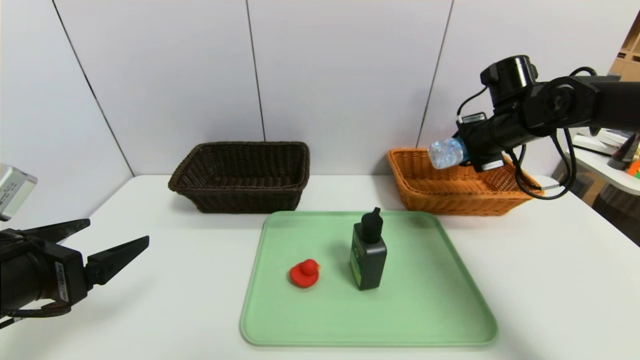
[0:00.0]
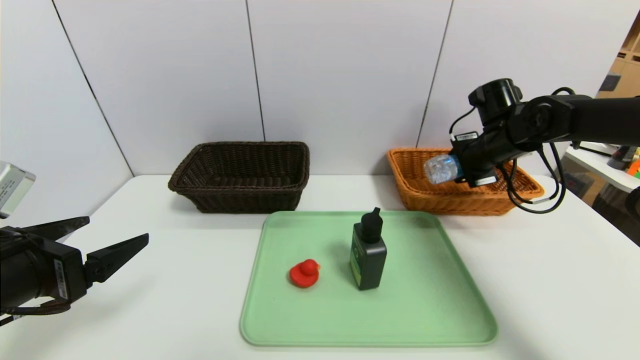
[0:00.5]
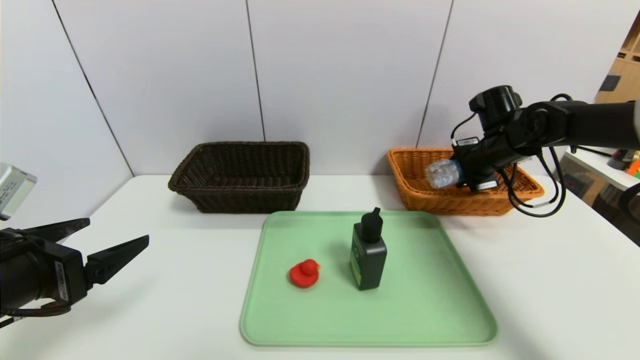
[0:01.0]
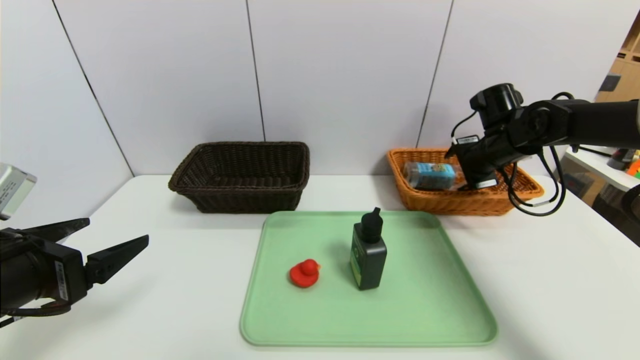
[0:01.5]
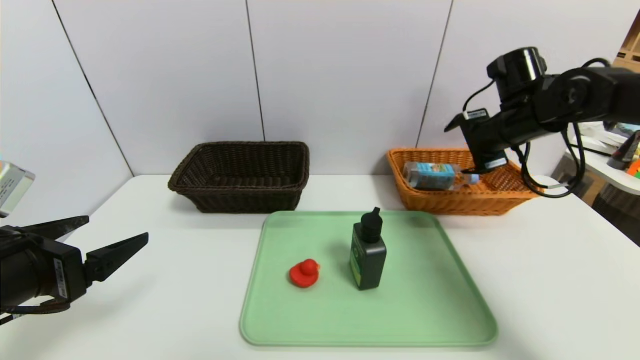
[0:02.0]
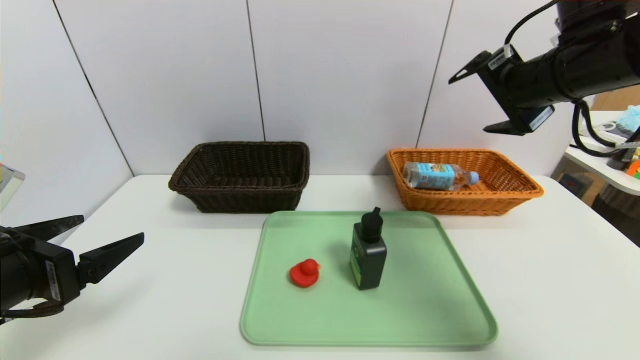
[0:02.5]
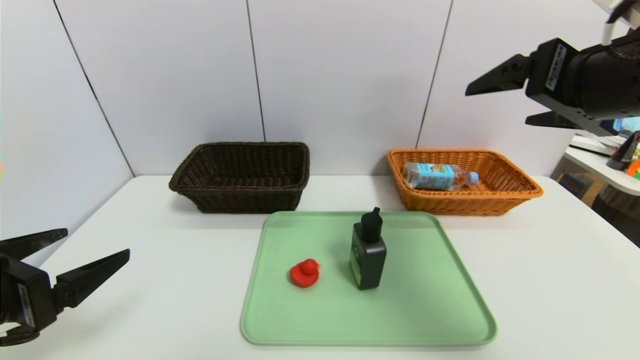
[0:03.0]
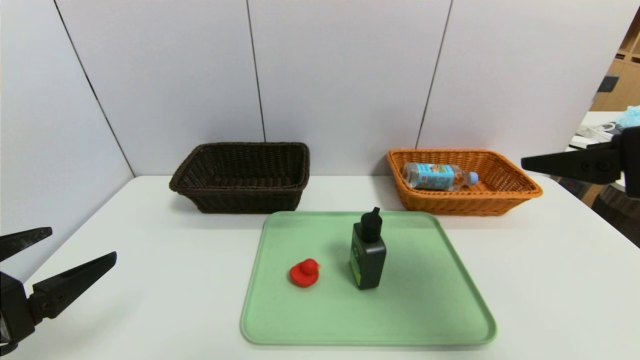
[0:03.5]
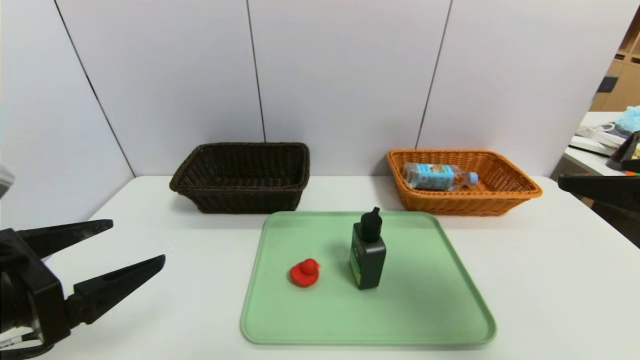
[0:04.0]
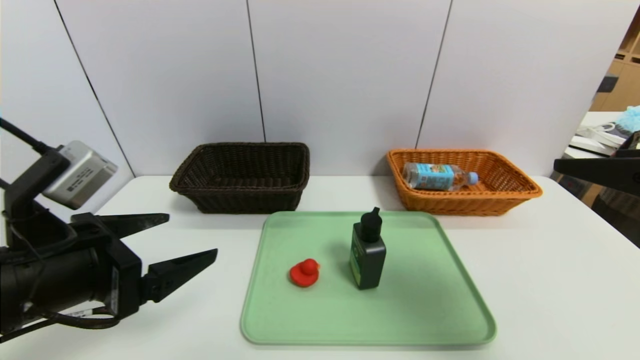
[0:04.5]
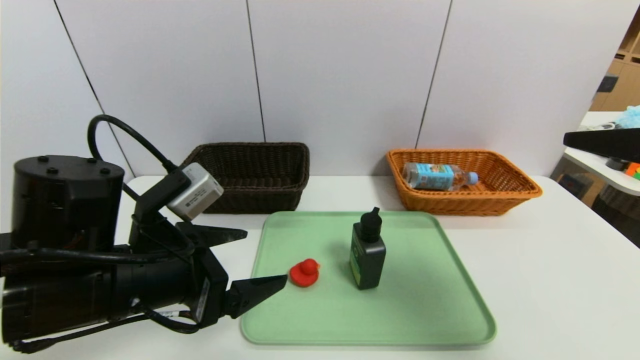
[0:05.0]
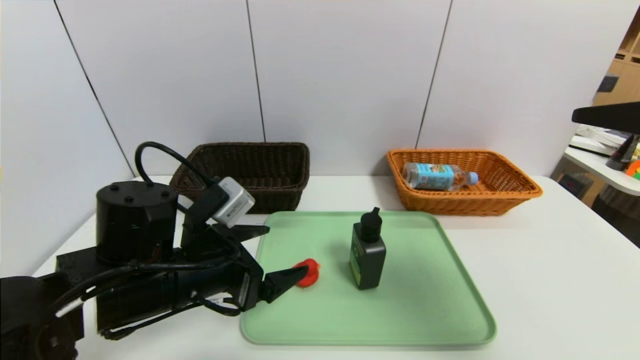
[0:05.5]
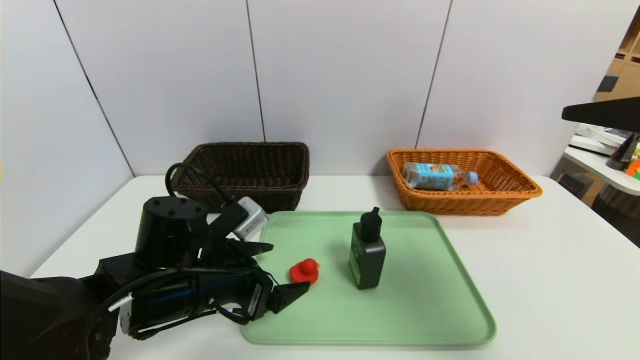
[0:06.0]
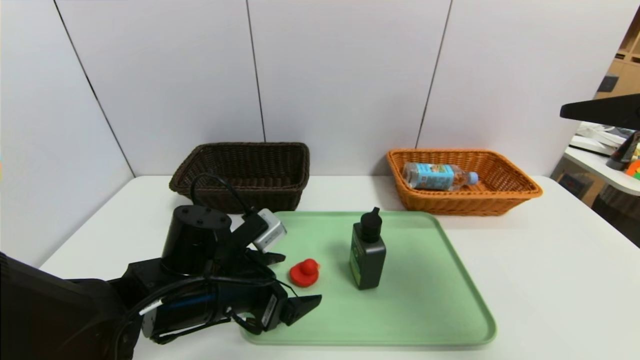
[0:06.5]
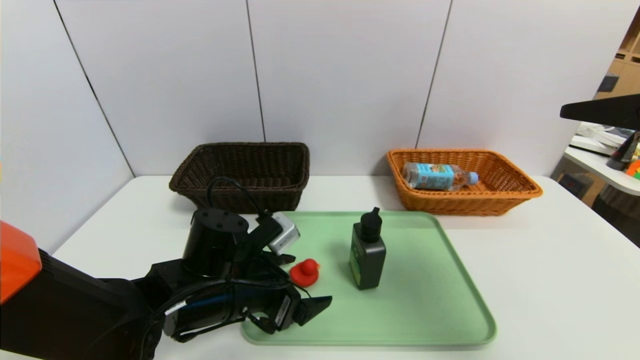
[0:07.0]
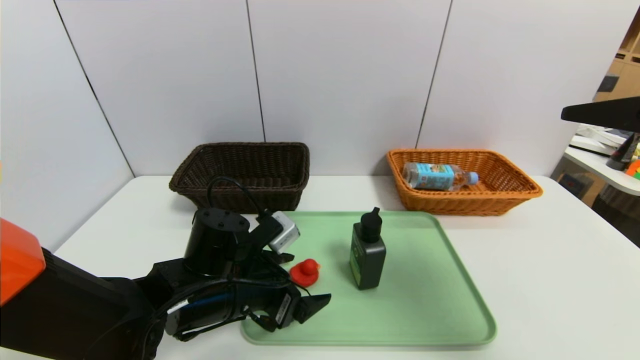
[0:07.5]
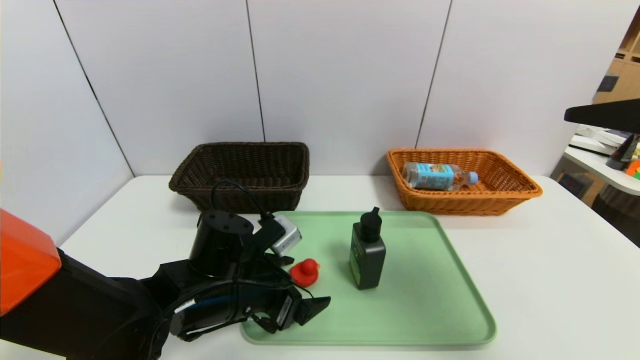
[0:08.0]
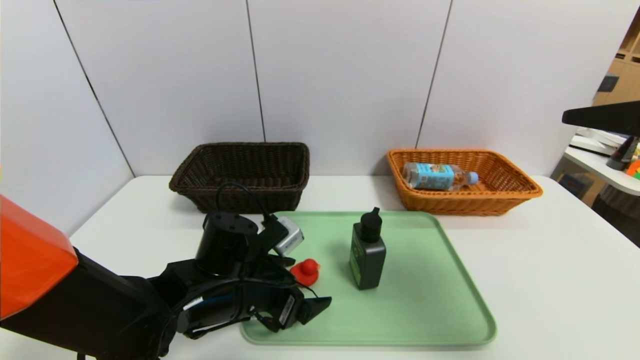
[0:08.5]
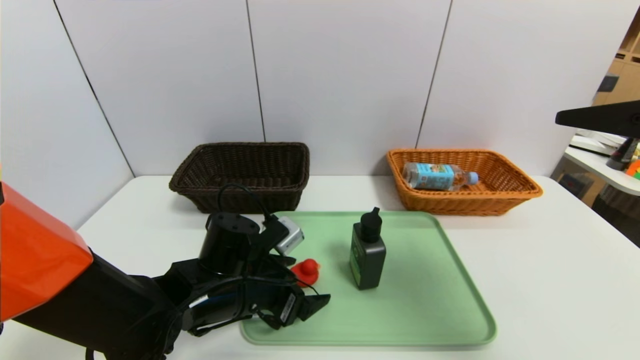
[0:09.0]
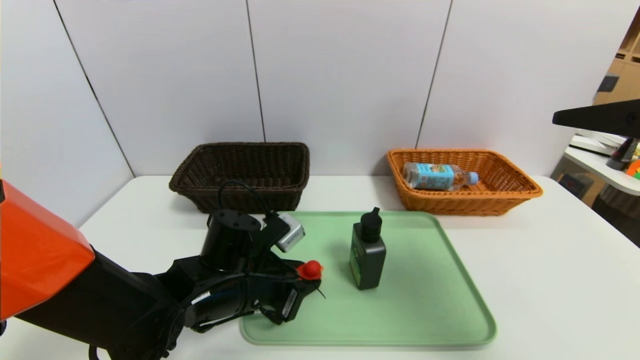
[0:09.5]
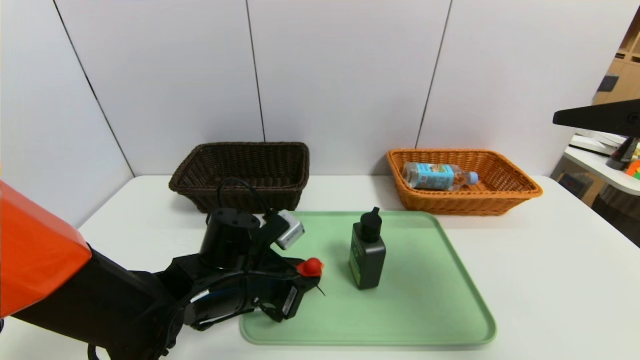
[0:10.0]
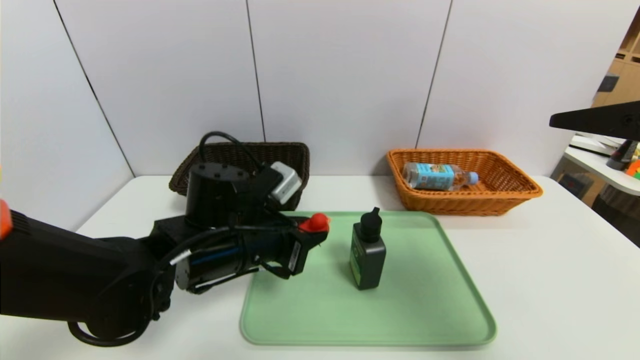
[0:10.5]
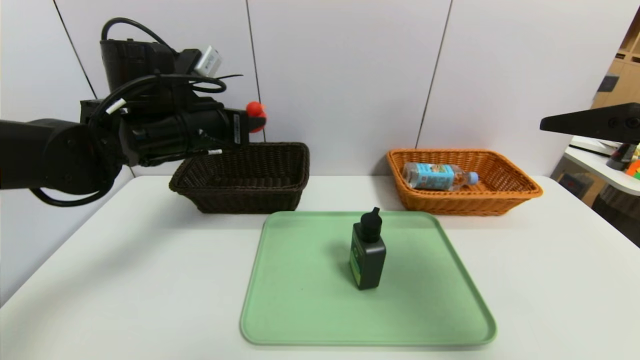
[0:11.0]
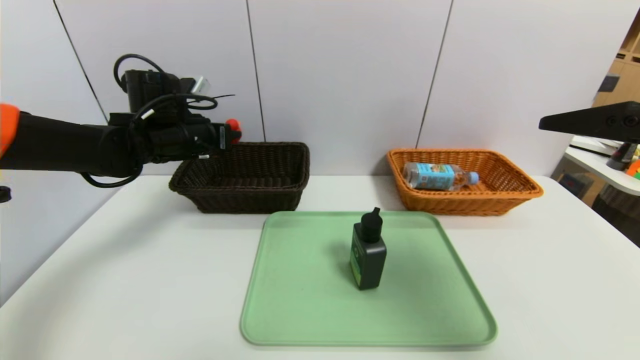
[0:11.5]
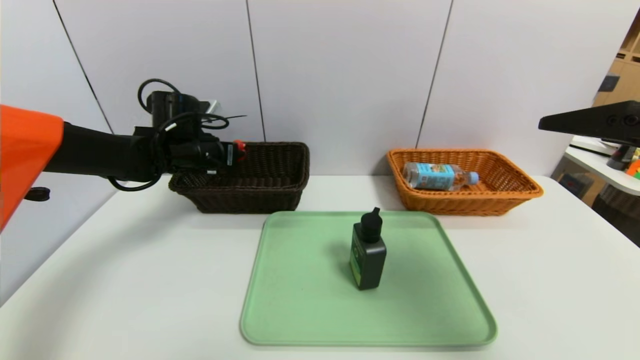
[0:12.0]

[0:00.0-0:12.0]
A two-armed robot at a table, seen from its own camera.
Task of the whole recording: place the food in the right basket with the right gripper, and place the non food items in the left basket with the left gripper.
0:00.0 to 0:02.0: The right gripper opens.
0:02.0 to 0:04.0: The right gripper heads backward, covering some 30 cm.
0:04.0 to 0:06.0: The left gripper heads to the right, forward and downward, covering about 20 cm.
0:06.0 to 0:08.0: There are only small adjustments of the grippers.
0:08.0 to 0:10.0: The left gripper closes up.
0:10.0 to 0:12.0: The left gripper is displaced forward, to the left and upward by roughly 25 cm.

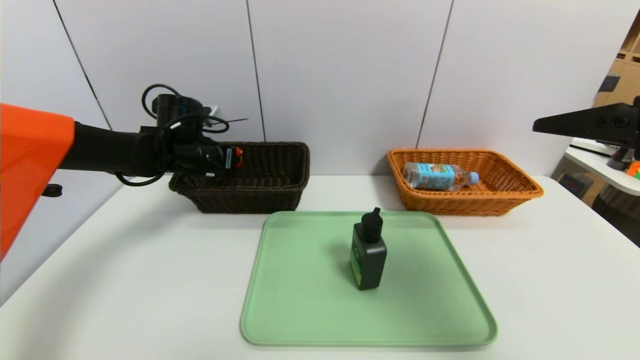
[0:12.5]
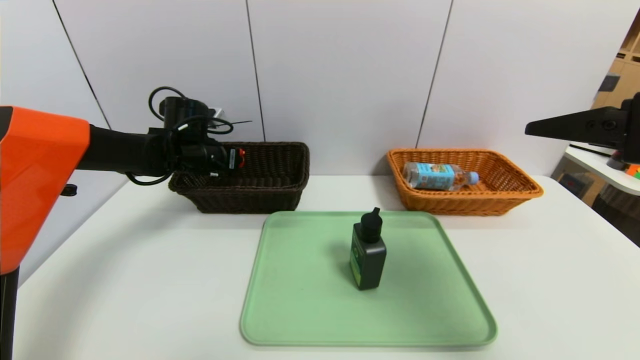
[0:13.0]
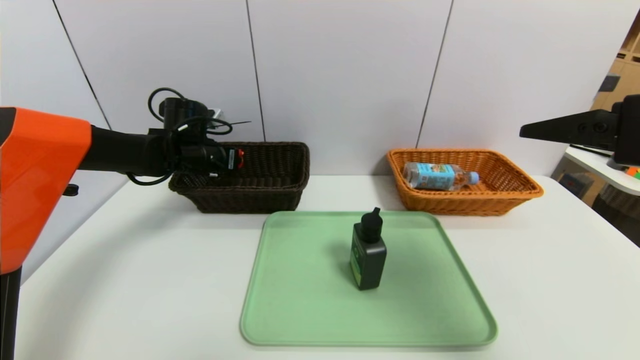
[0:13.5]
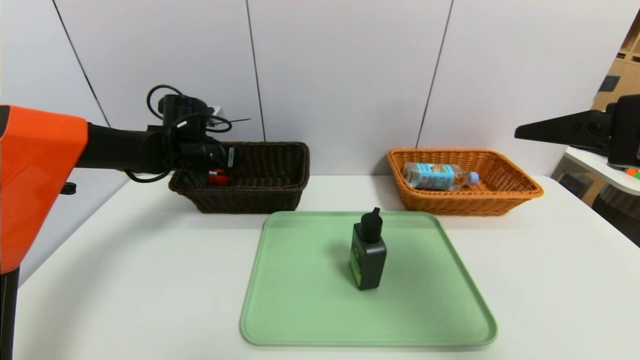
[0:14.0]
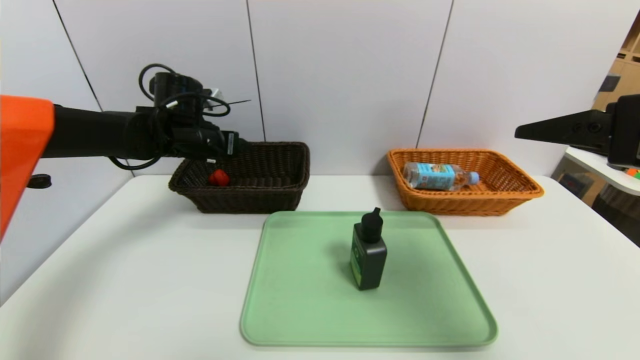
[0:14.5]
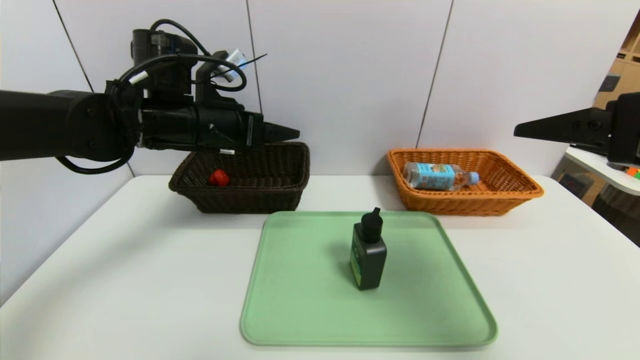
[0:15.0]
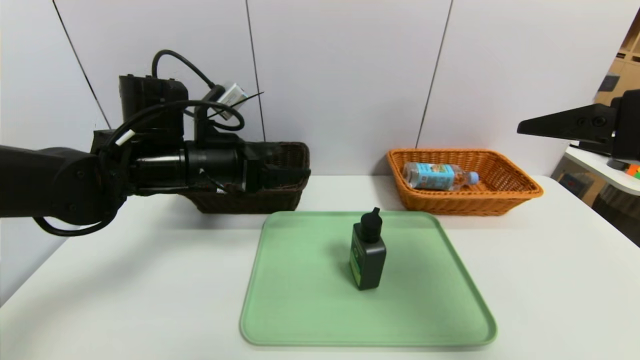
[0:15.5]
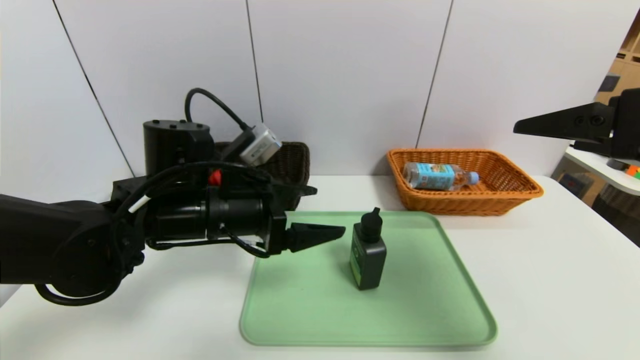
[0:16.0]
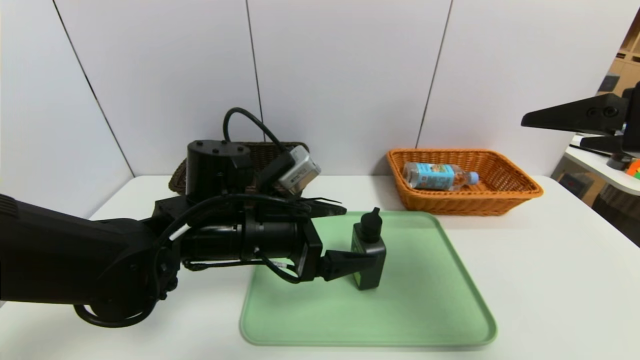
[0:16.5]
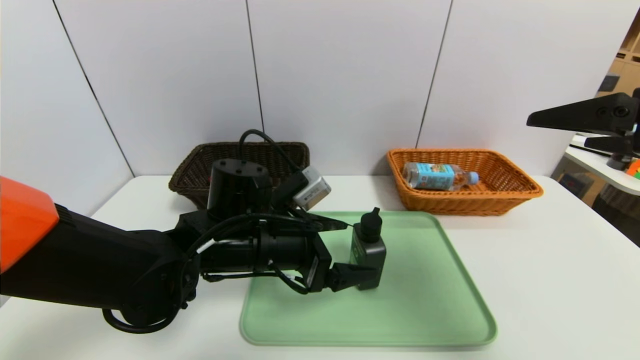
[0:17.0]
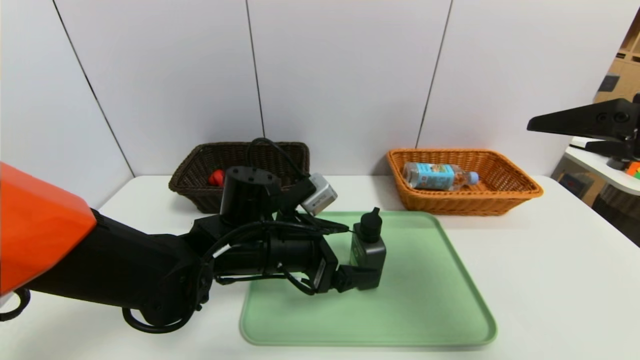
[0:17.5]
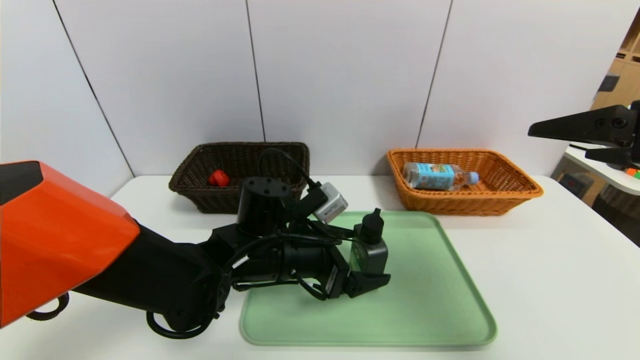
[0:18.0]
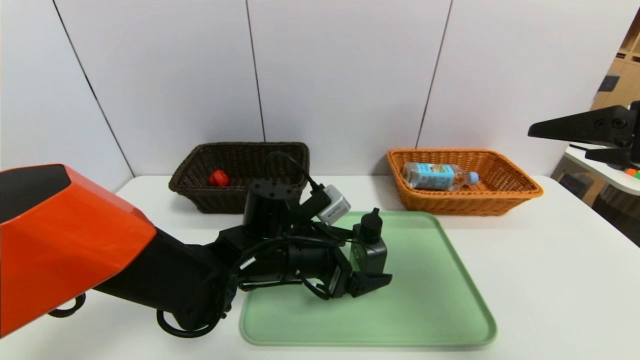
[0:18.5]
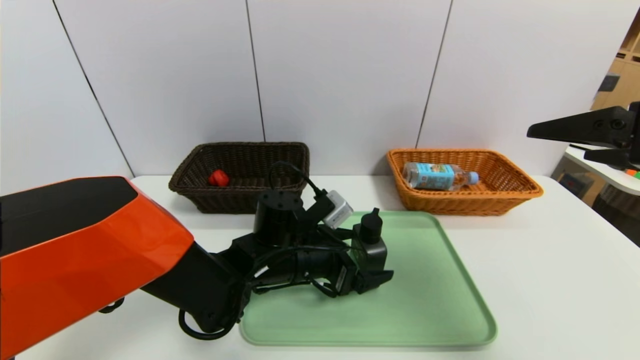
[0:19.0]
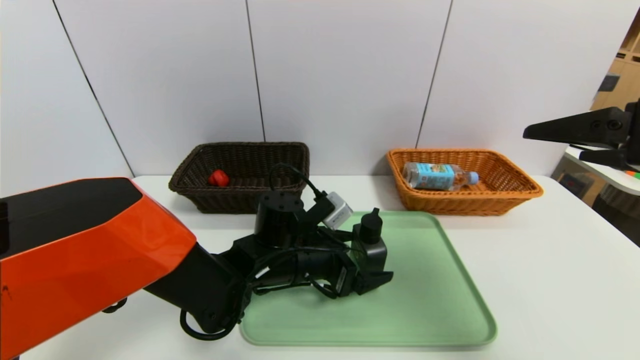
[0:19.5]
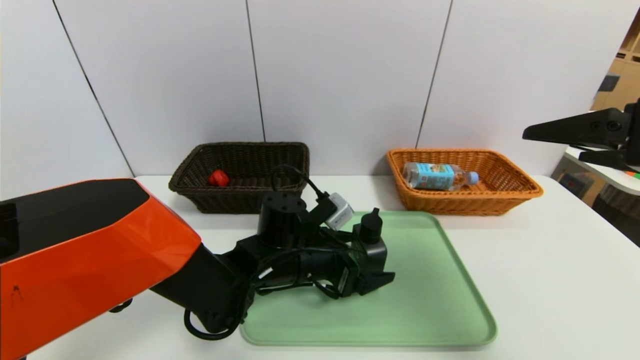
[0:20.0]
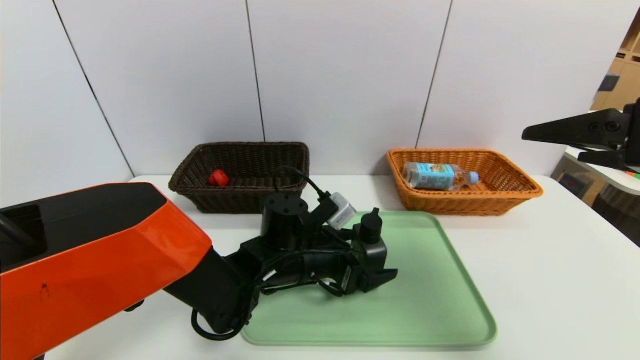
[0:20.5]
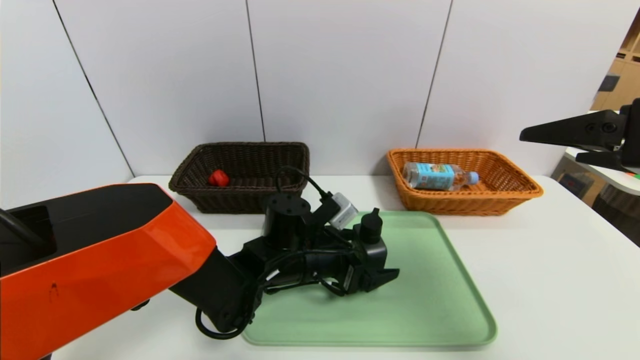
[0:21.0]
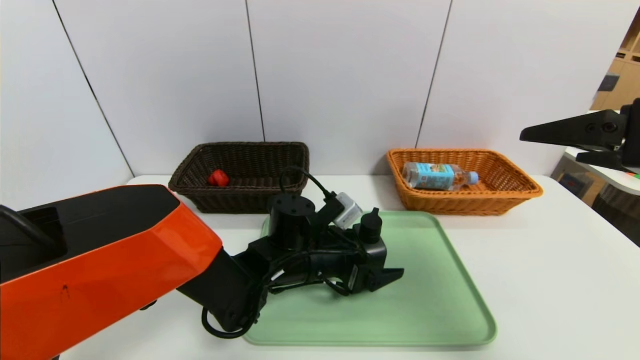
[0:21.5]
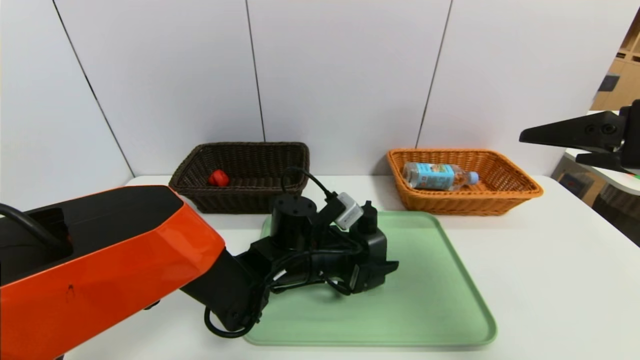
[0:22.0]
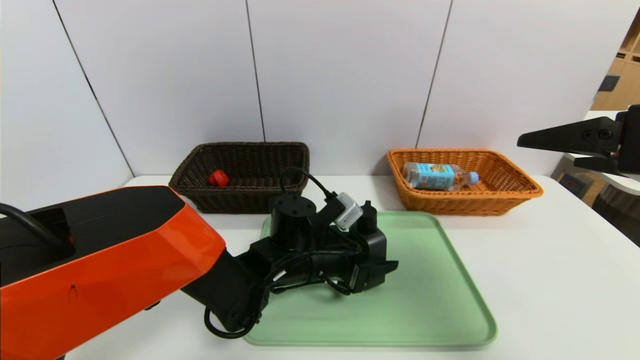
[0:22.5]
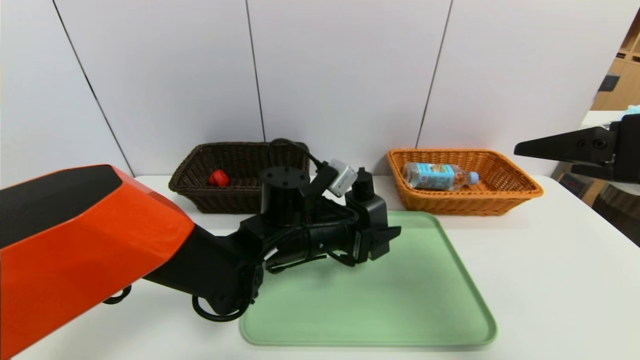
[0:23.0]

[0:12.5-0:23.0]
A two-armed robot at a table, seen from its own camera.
Task of the whole recording: place the food in the right basket with the right gripper, and place the non food items in the left basket with the left gripper.
Step, 0:12.5 to 0:14.5: Grasp the red duck and put it in the left basket.
0:12.5 to 0:14.5: The left gripper opens up.
0:14.5 to 0:16.5: The left gripper is displaced backward and to the right by some 20 cm.
0:16.5 to 0:19.0: The left gripper is displaced downward by about 10 cm.
0:19.0 to 0:21.0: There are only small adjustments of the grippers.
0:21.0 to 0:23.0: The left gripper shifts about 5 cm upward, and closes its fingers.
